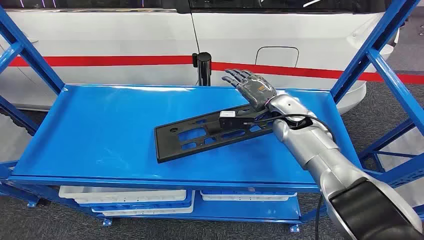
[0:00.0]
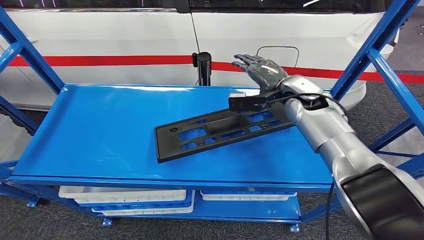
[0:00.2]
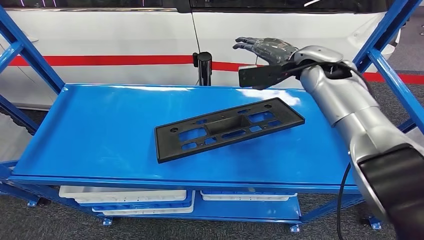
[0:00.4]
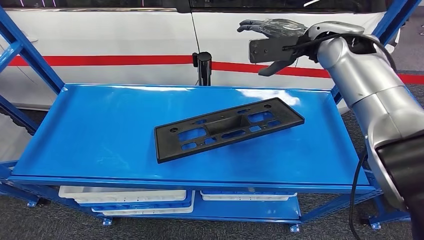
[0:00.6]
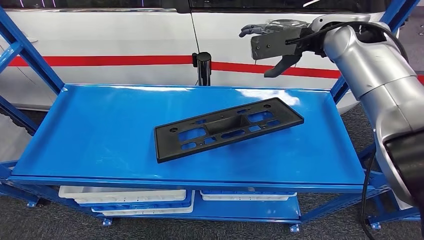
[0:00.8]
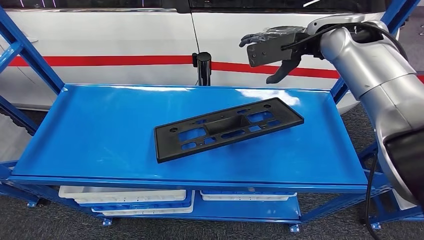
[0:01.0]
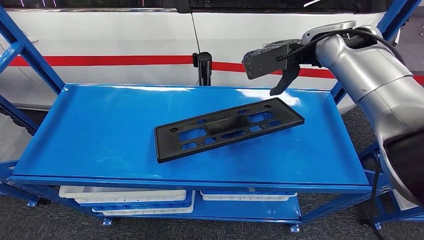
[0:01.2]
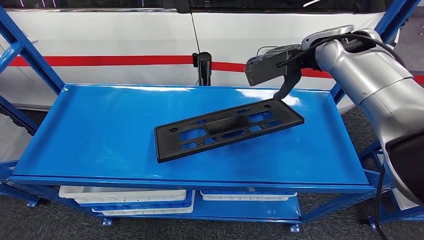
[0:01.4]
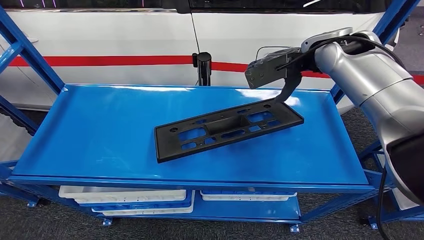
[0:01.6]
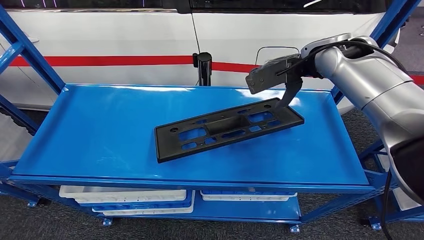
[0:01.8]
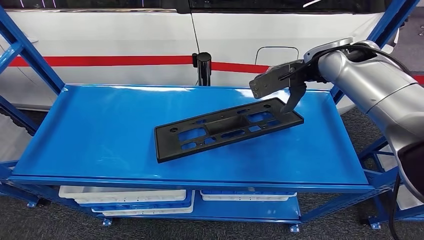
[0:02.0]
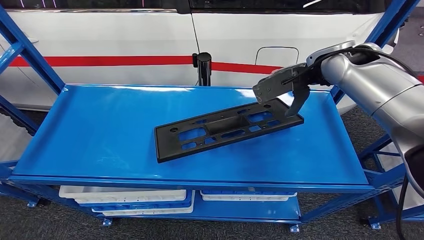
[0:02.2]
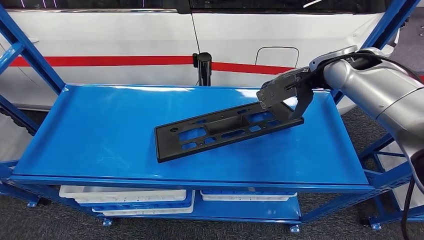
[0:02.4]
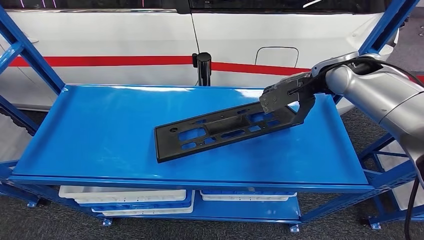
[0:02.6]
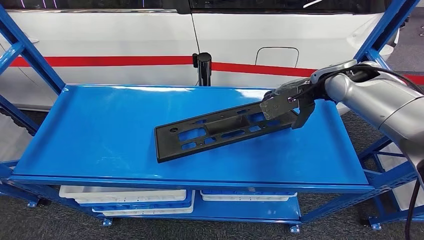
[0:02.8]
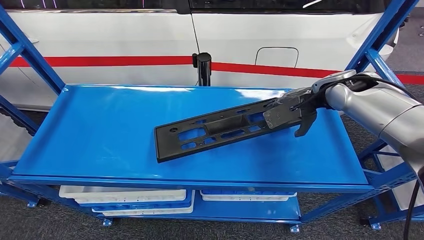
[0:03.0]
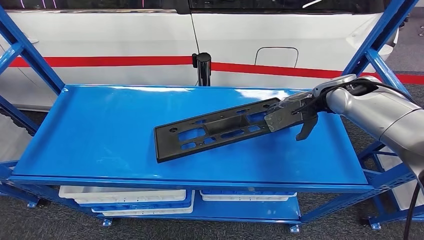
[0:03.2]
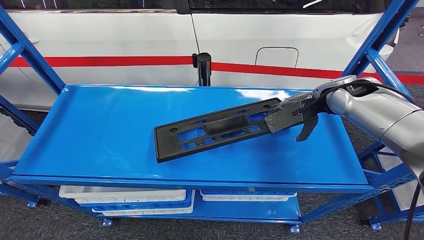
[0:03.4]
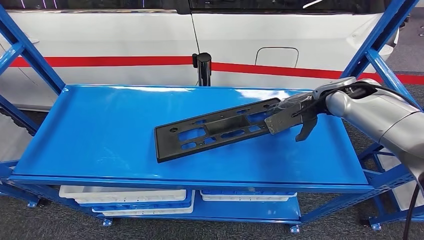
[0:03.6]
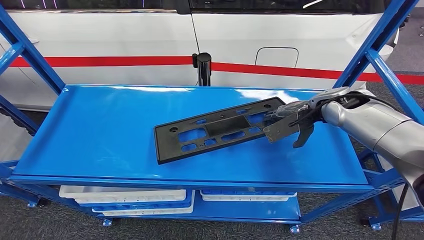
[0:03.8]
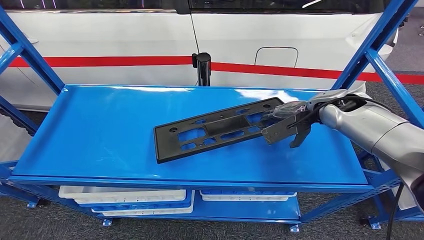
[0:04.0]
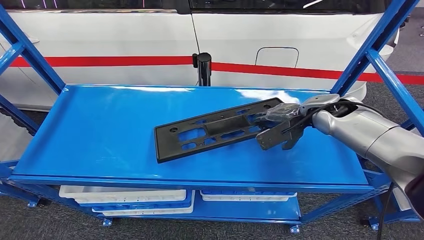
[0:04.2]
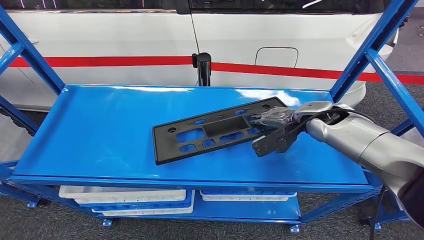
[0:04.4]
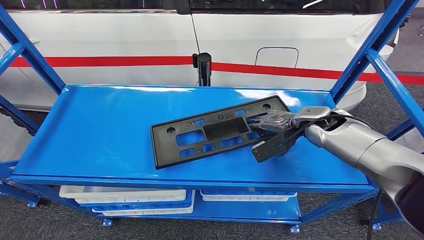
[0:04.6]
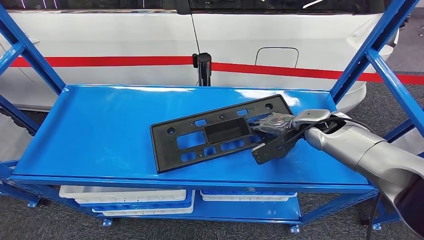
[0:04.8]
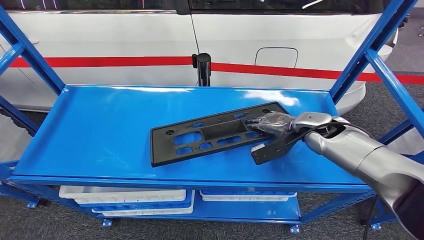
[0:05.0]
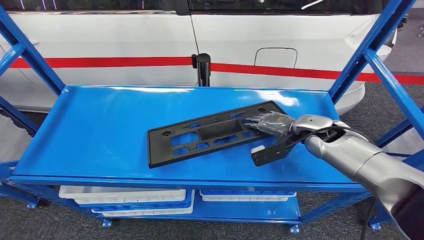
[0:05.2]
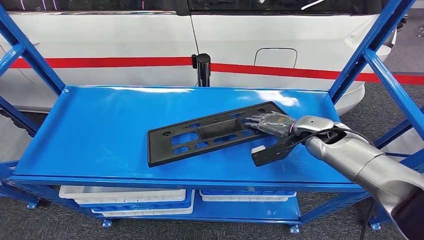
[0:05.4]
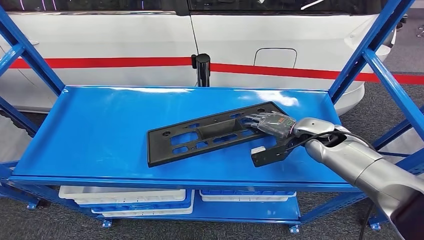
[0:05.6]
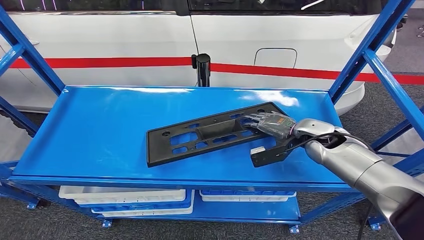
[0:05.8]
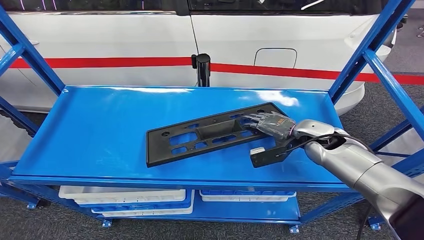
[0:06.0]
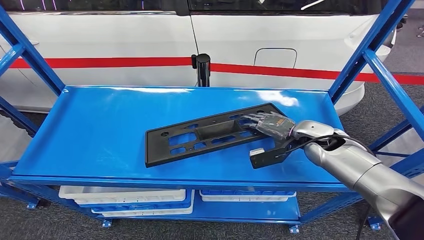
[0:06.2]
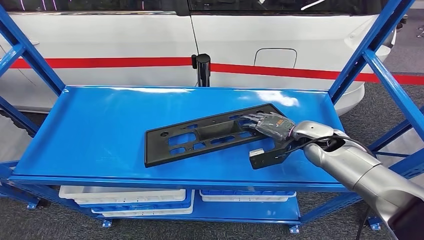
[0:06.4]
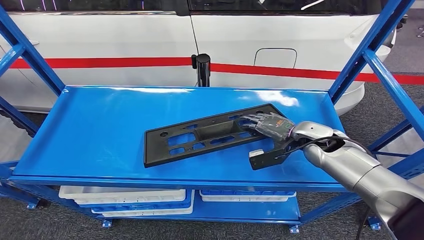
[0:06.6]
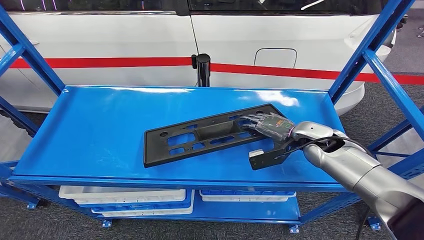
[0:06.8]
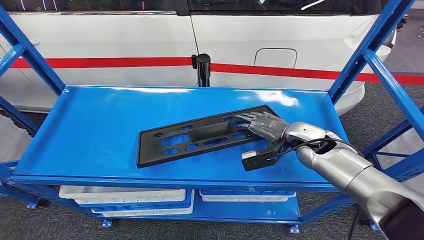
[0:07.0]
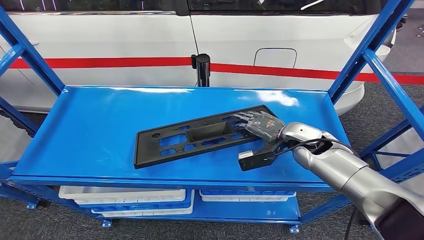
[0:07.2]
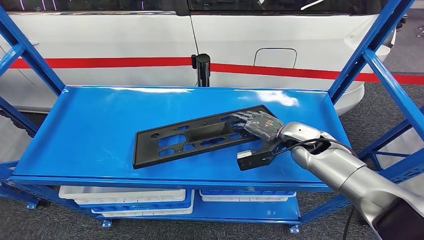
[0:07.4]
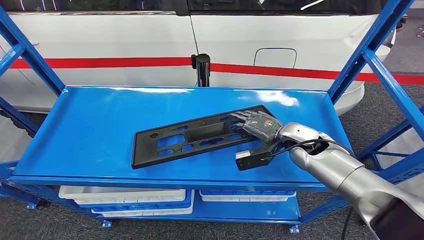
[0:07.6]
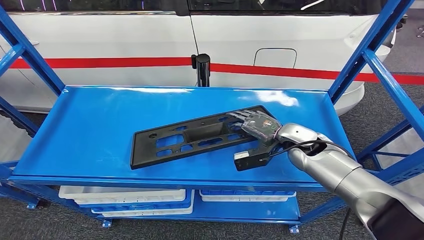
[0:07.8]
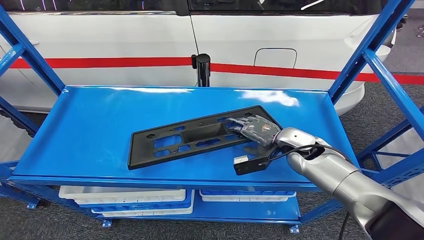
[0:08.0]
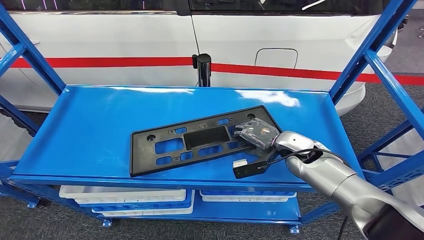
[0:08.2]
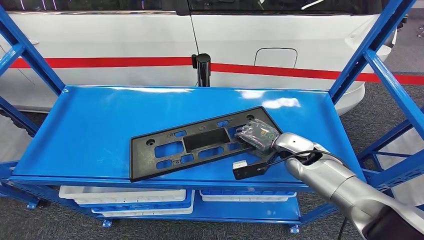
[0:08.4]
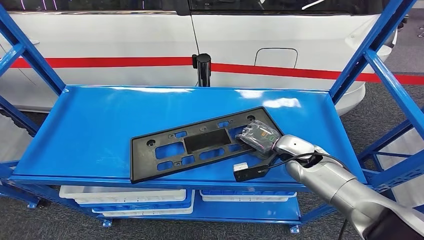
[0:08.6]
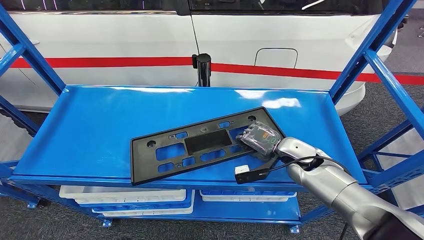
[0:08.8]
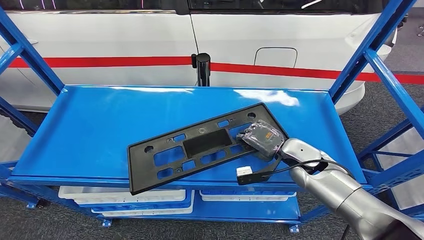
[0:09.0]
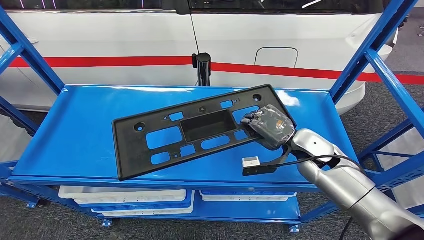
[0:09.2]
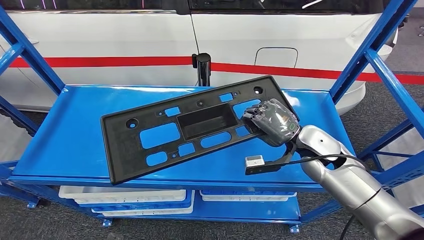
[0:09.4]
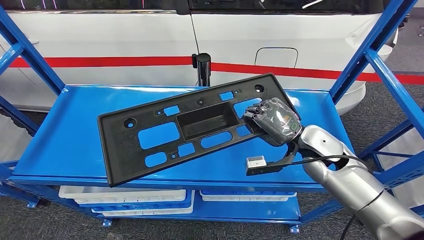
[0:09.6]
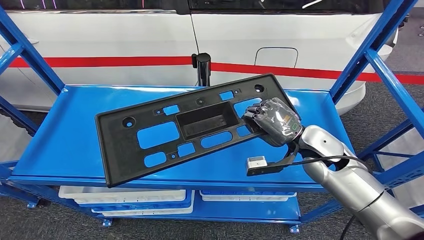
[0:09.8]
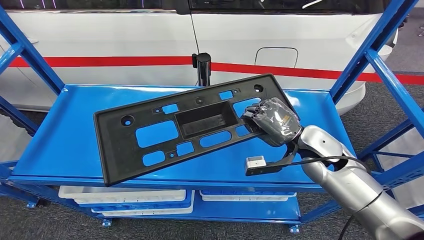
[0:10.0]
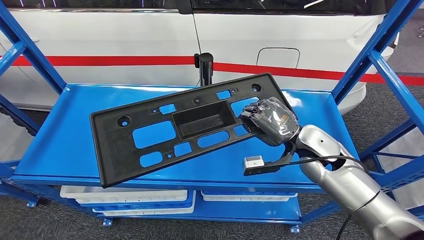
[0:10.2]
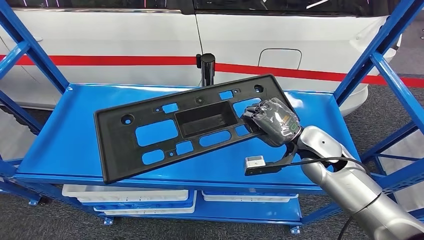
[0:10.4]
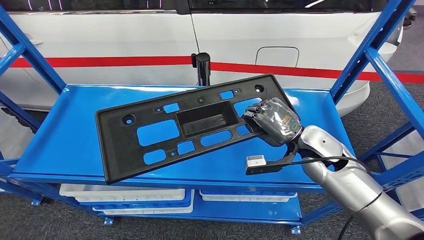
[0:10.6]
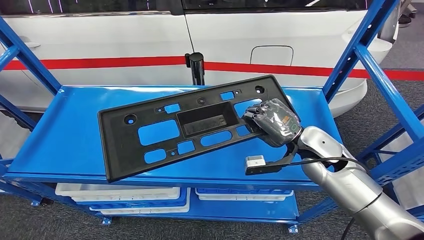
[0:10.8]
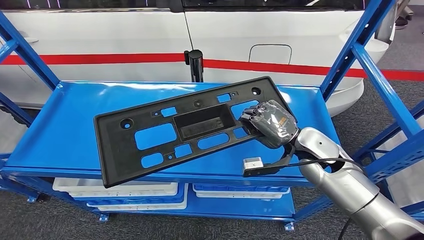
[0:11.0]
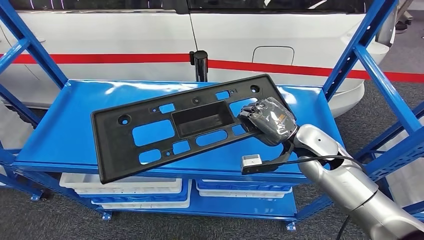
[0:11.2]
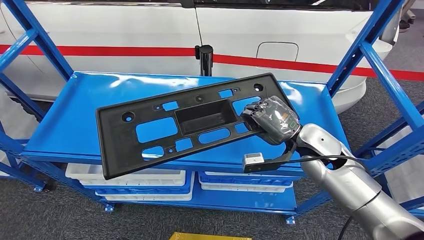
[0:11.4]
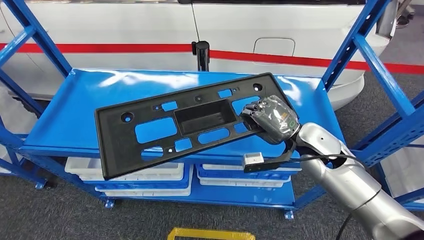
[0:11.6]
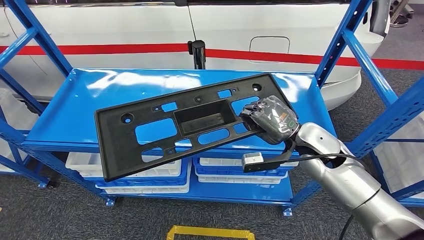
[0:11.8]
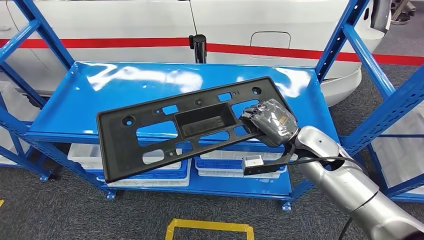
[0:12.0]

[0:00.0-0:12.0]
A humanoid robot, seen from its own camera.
Step, 0:00.0 to 0:10.2: Pick up the large material from the shelf.
0:01.6 to 0:03.0: The right hand moves downward and to the right, about 10 cm.
0:03.0 to 0:04.4: The right hand travels downward by some 10 cm.
0:04.4 to 0:06.0: The right hand shifts approximately 5 cm downward.
0:06.0 to 0:07.6: There are only small adjustments of the hands.

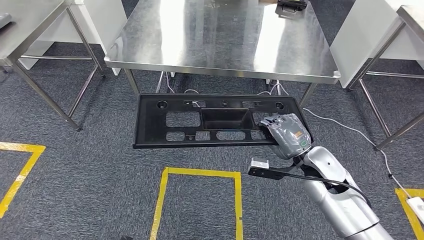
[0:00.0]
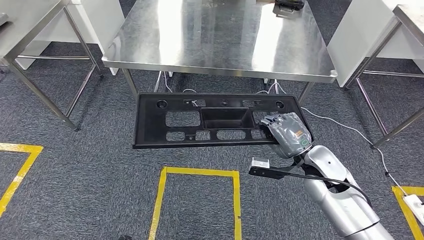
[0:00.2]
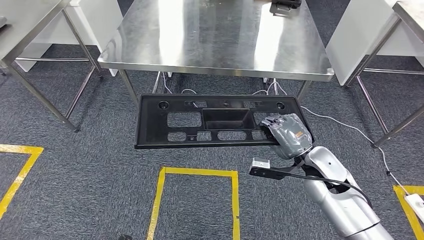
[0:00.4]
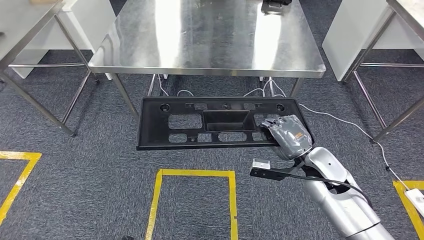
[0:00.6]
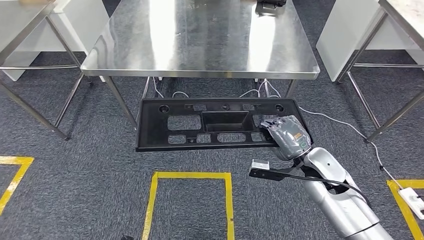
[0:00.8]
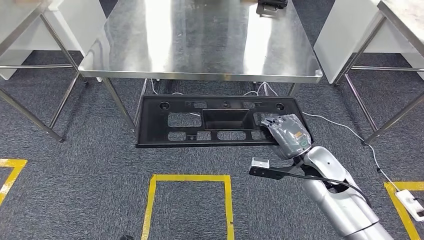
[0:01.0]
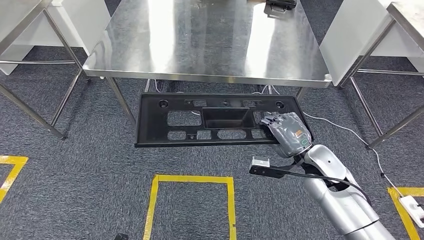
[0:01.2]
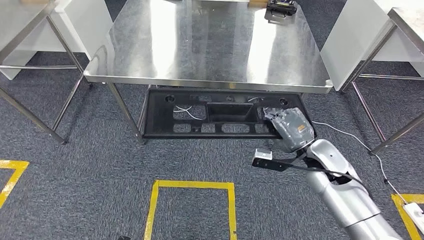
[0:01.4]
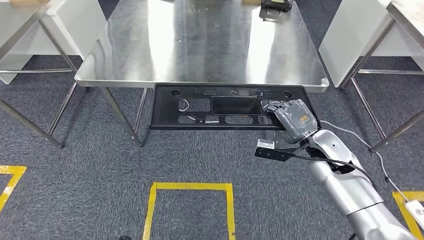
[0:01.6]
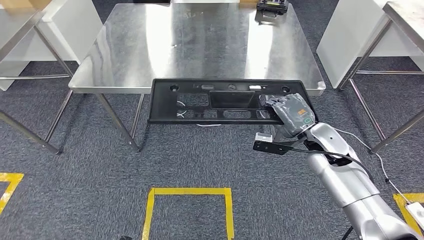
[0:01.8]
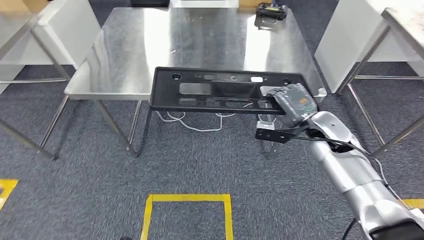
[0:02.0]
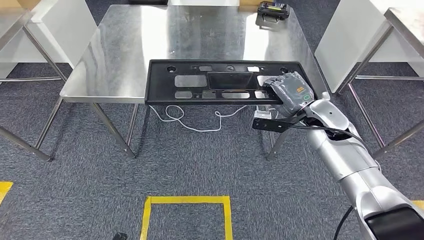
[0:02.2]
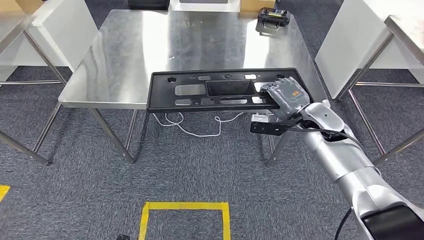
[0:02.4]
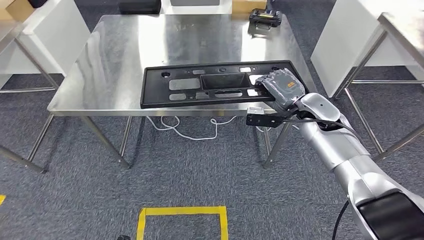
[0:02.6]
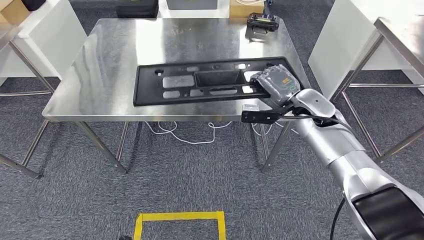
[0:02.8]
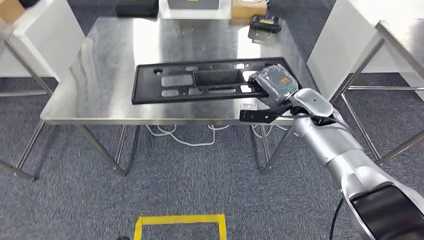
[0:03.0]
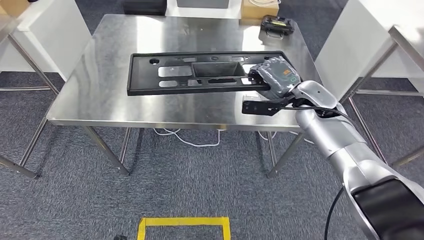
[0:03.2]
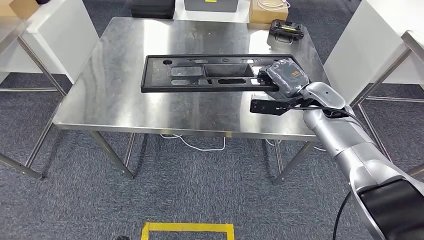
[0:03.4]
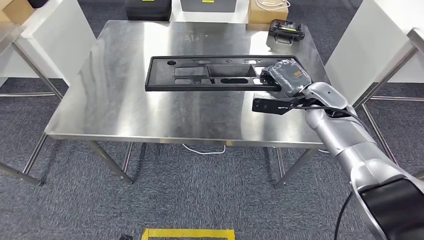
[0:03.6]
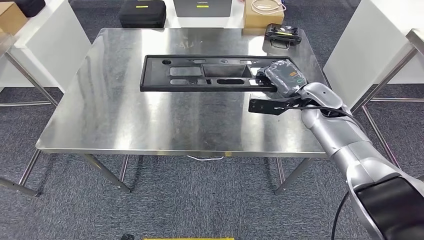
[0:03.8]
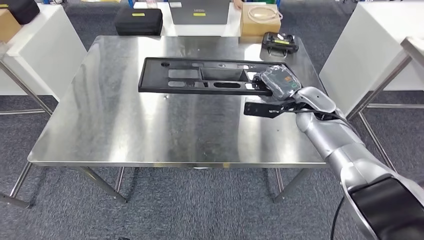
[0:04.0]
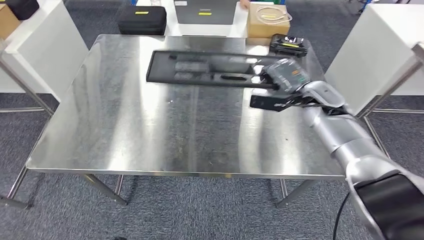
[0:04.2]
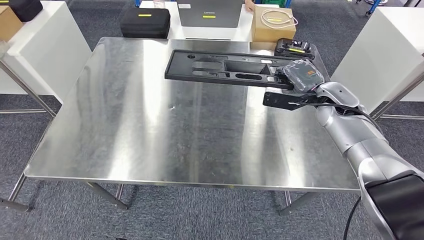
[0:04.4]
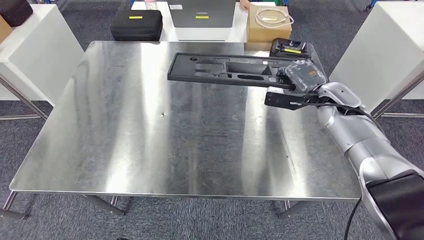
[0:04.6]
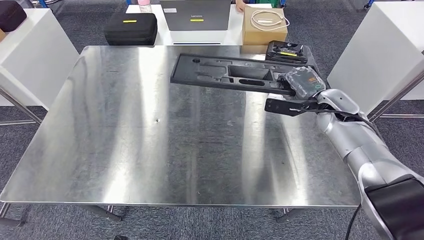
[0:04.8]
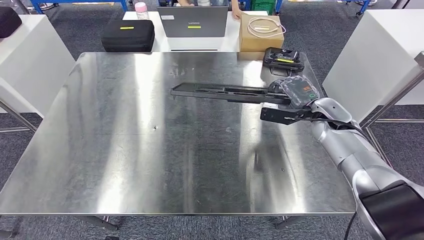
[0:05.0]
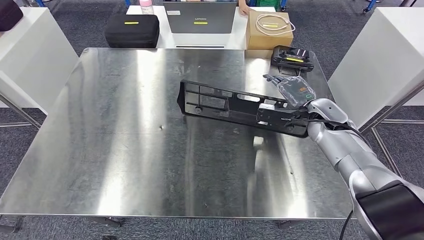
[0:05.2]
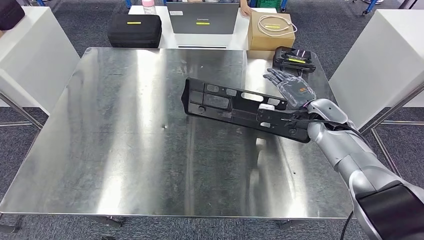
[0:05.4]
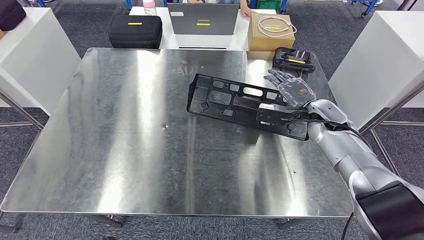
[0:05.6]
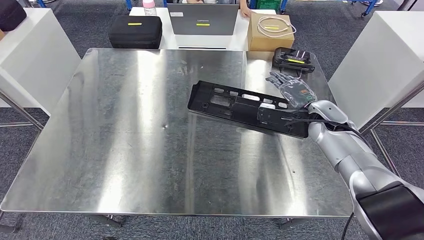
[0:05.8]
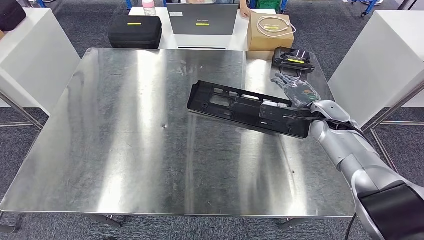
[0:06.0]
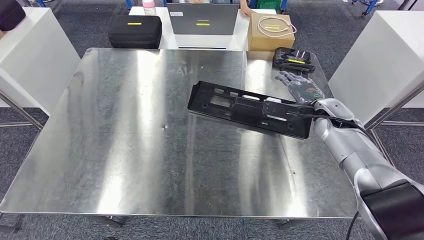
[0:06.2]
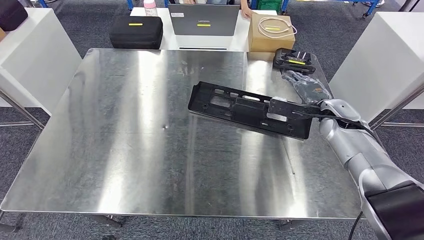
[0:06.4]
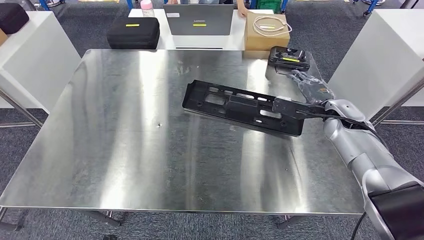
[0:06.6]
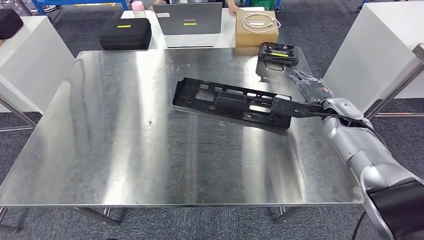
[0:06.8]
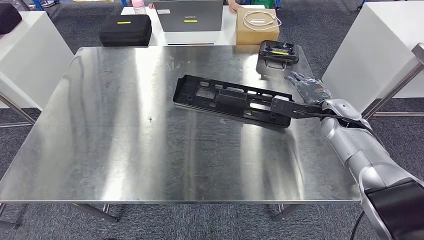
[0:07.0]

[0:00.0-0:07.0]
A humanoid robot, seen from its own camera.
Step, 0:00.4 to 0:06.2: Insert the large material into the corresponding slot on the workbench.
